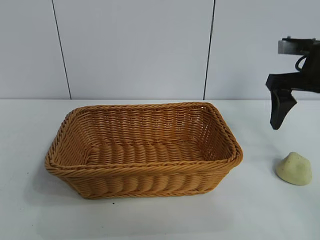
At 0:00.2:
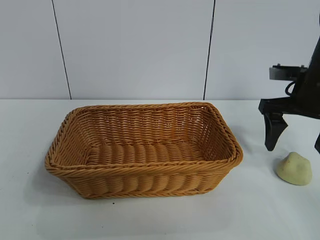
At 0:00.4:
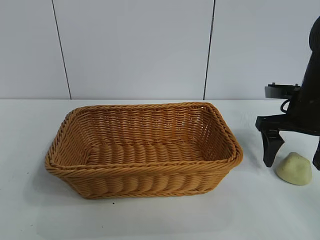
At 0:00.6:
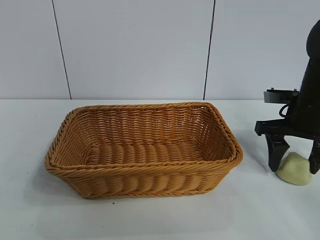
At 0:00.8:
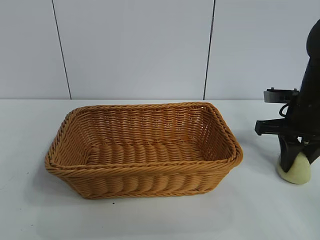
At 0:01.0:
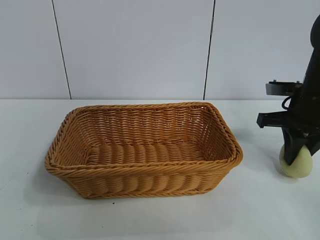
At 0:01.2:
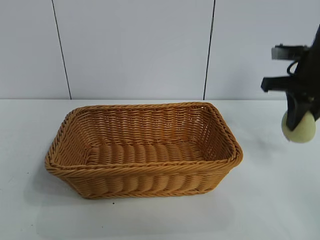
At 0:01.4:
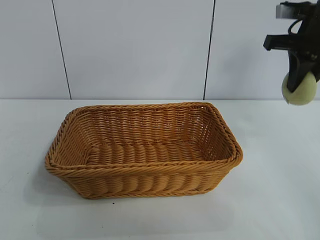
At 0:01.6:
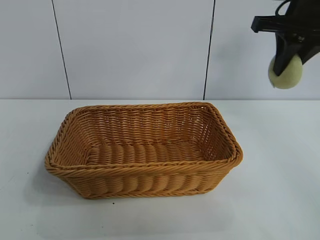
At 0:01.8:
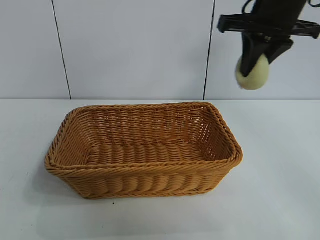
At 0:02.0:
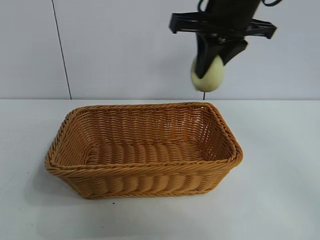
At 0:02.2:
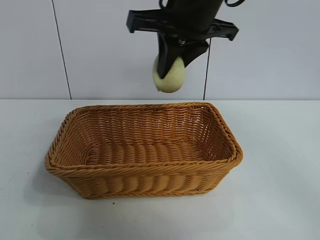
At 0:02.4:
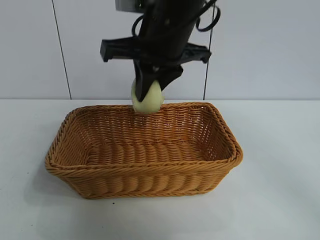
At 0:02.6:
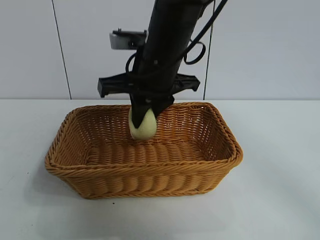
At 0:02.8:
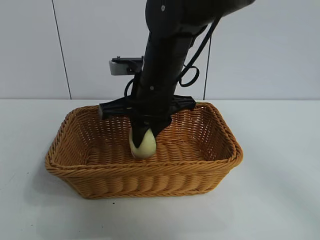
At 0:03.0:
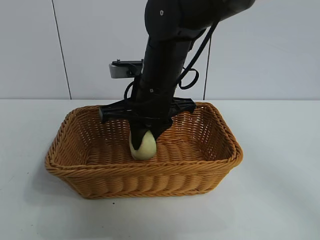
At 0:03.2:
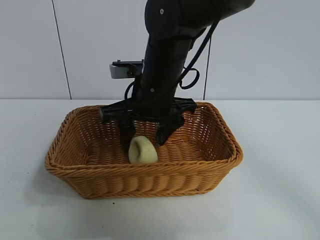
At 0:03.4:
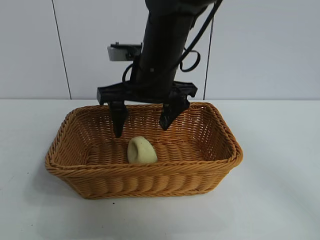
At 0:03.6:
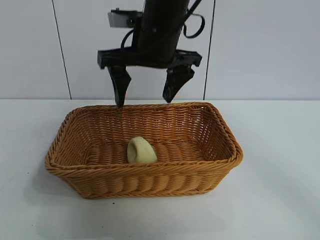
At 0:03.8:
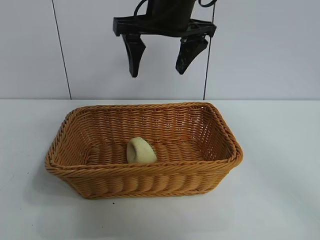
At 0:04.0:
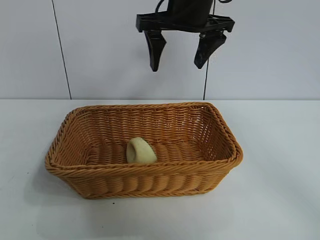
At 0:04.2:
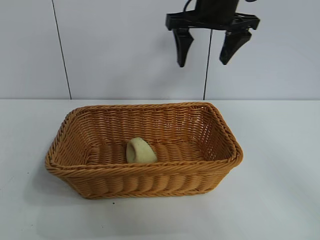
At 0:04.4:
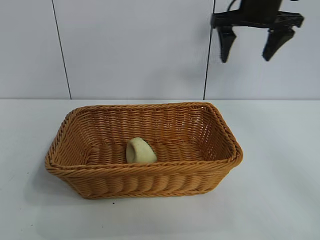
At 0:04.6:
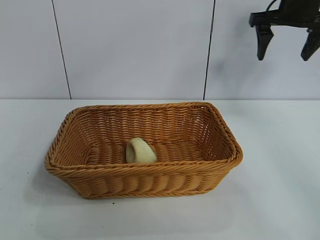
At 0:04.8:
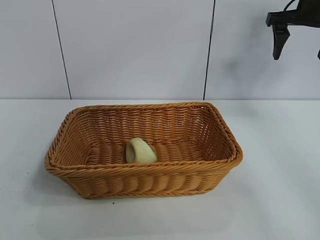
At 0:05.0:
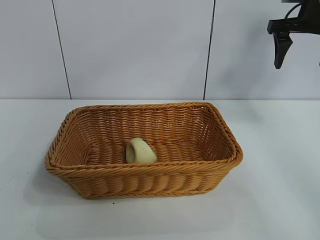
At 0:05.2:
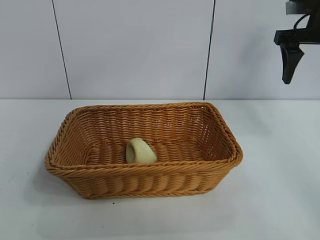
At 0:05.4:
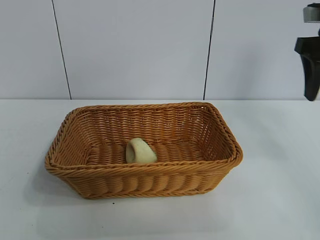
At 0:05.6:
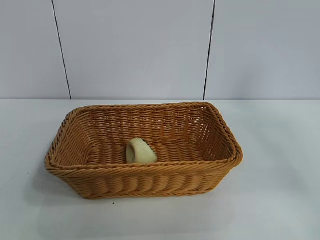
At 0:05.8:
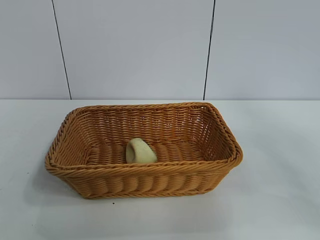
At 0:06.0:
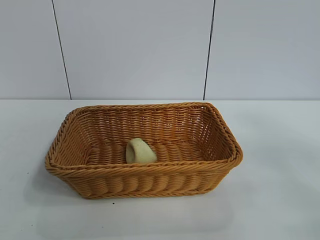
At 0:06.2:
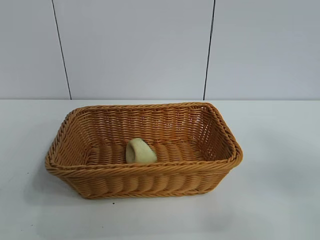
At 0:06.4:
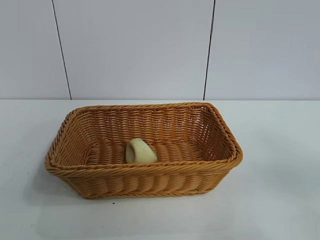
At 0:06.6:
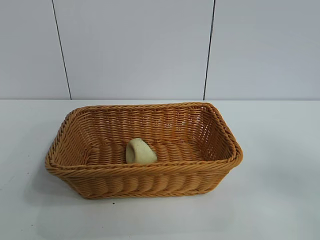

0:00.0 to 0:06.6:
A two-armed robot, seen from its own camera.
Task of the whole recording: pick up the egg yolk pastry and put it into the basket.
Step, 0:01.0 to 0:03.2: Place the egg yolk pastry in the basket with right gripper.
